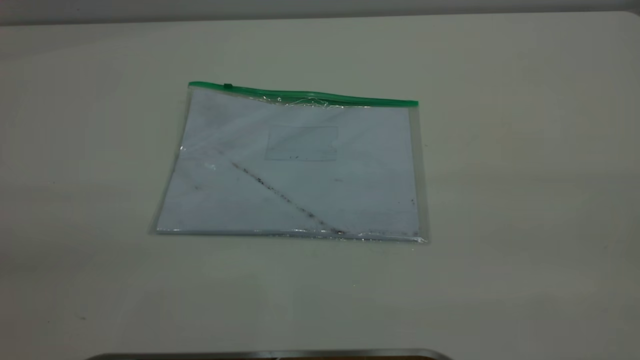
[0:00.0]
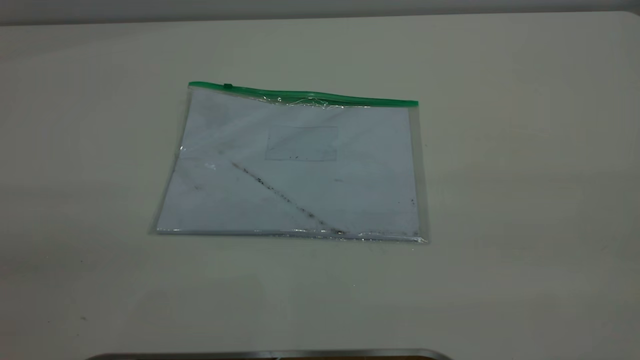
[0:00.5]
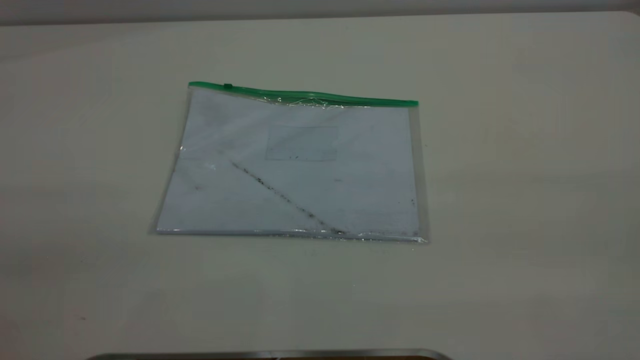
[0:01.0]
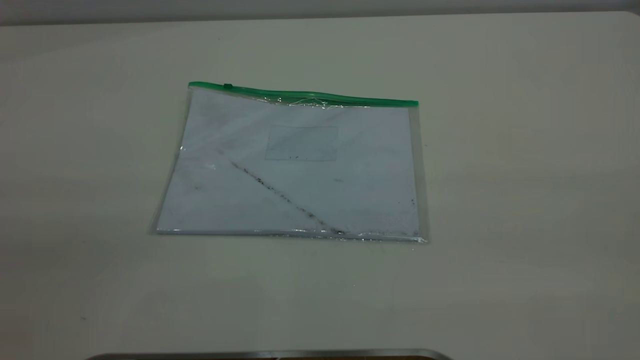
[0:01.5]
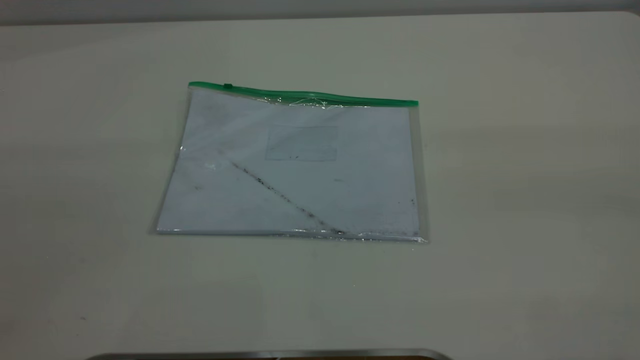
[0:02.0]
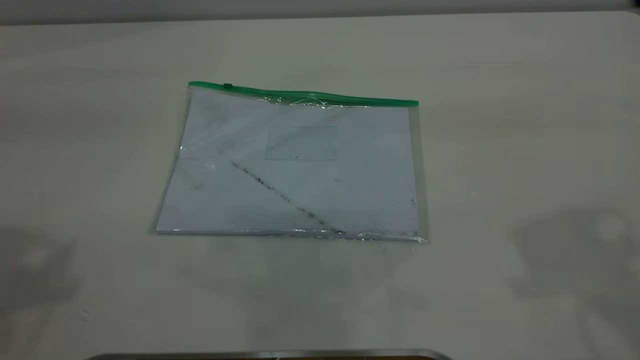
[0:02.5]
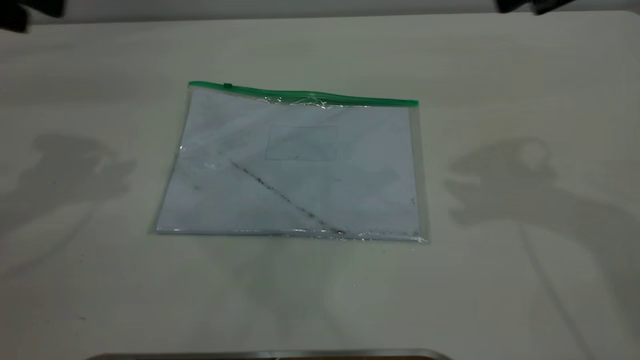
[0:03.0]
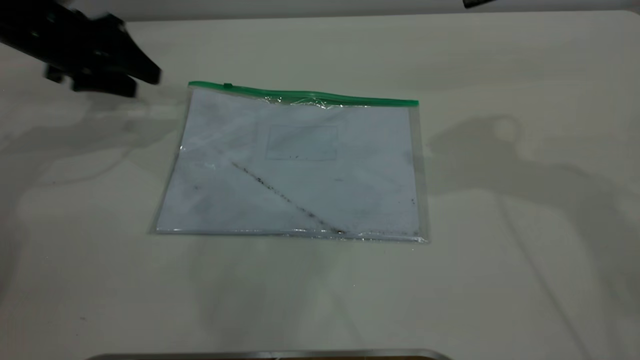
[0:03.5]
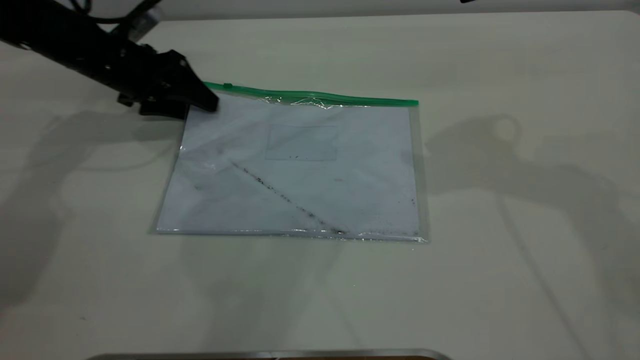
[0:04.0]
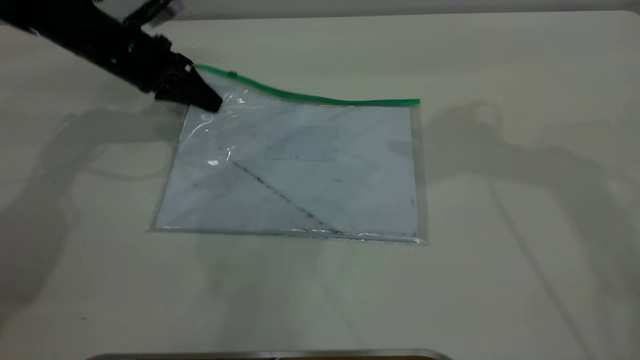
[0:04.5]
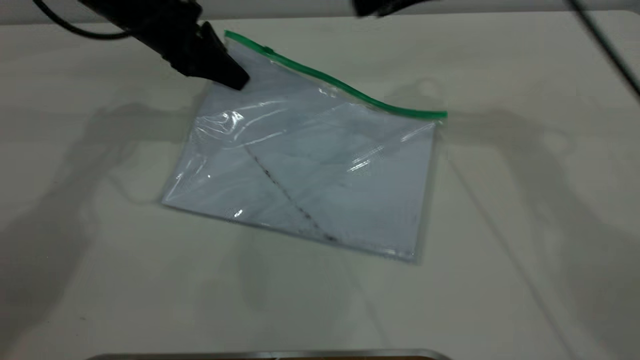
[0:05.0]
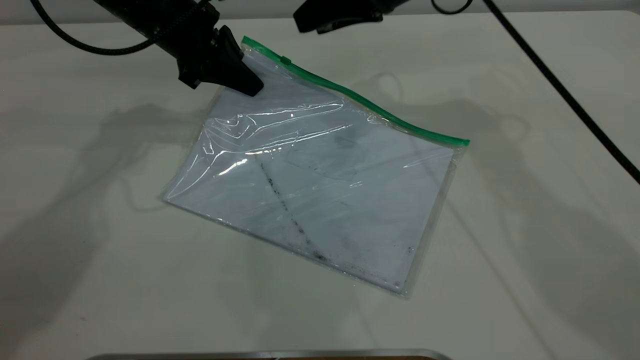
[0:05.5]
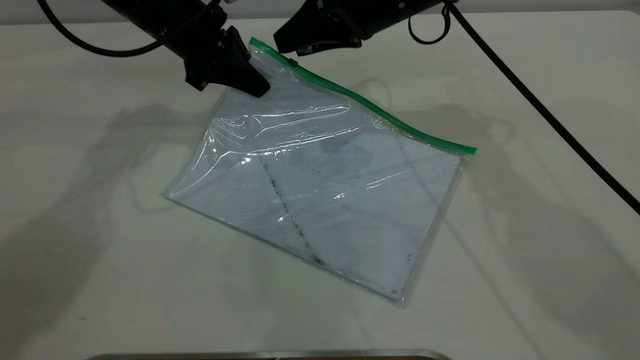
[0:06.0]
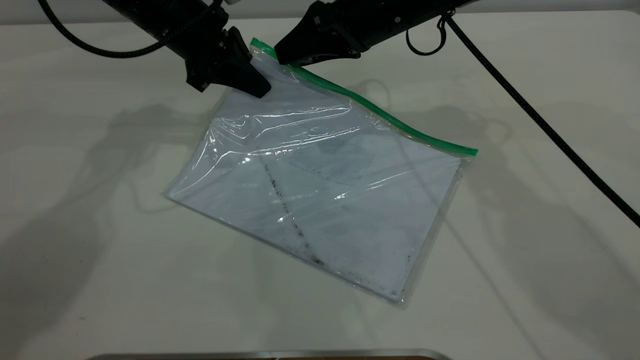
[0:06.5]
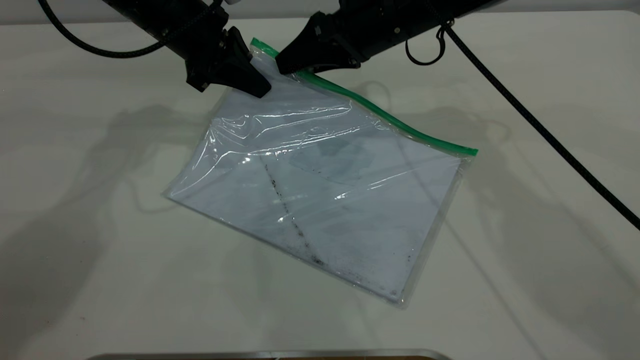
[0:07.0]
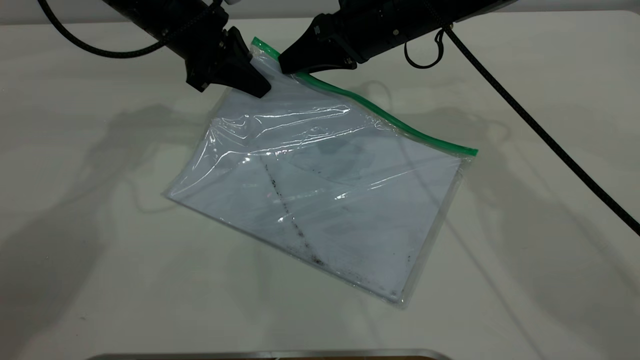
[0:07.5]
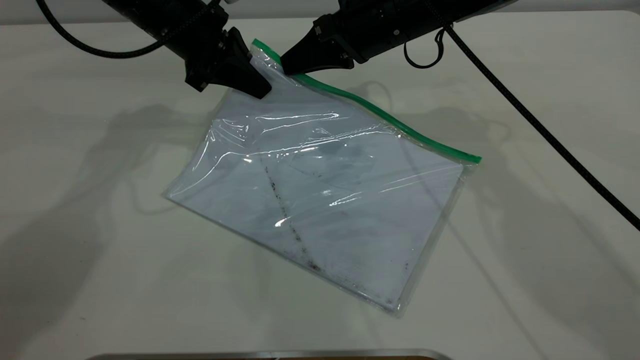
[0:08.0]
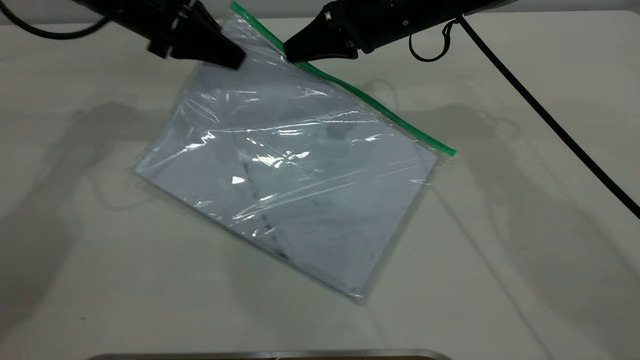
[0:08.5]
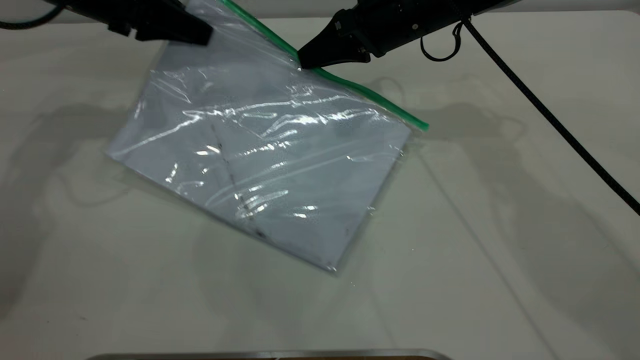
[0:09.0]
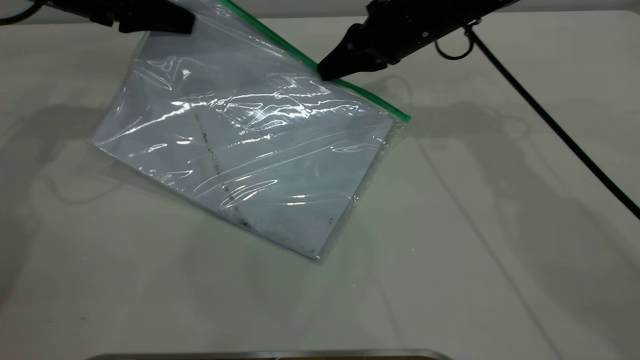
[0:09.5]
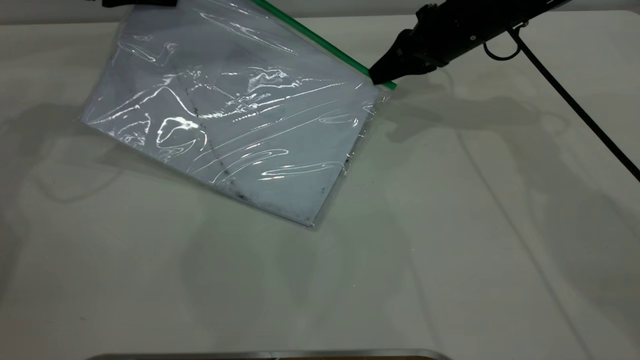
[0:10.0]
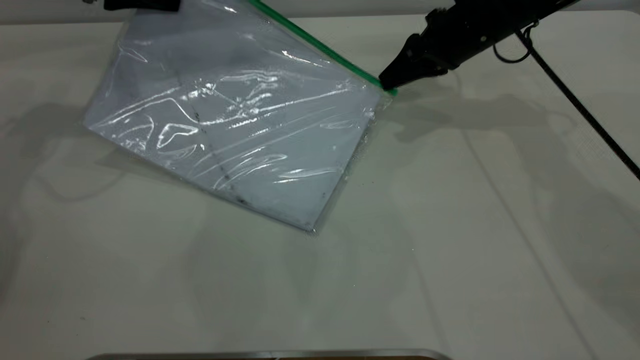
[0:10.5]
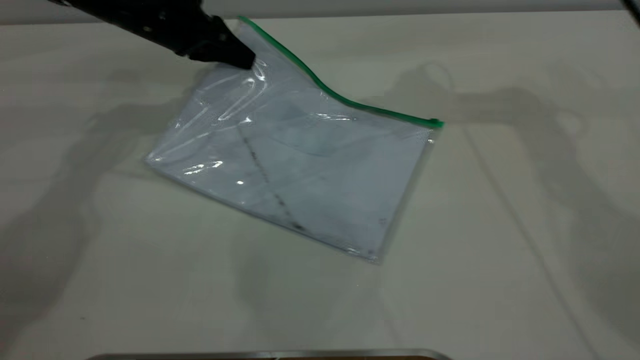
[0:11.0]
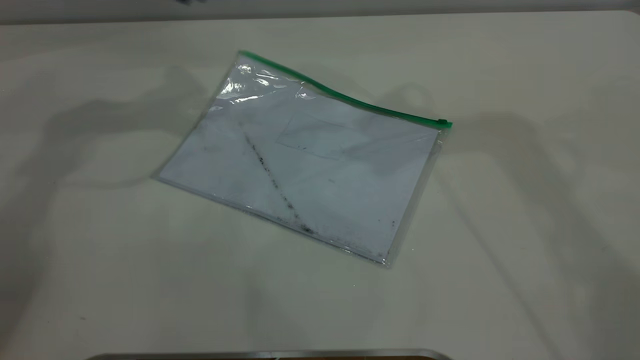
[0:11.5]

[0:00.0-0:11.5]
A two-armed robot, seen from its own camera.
Step, 0:00.0 to 0:04.5: Pick up the transparent plastic bag with the left gripper.
Step, 0:05.0 to 0:10.5: Pulling up the zipper on the transparent plastic bag with the right gripper to close it.
0:02.0 to 0:04.0: The left gripper heads forward and downward, covering about 50 cm.
0:04.0 to 0:06.0: The right gripper moves to the left, downward and forward, roughly 20 cm; the left gripper heads to the right and upward, covering about 10 cm, and closes up.
0:06.0 to 0:07.5: The right gripper closes up.
0:07.5 to 0:09.5: The left gripper heads to the left, covering some 10 cm. The right gripper closes.
0:09.5 to 0:11.5: The right gripper shifts roughly 30 cm upward, and opens up. Meanwhile the left gripper travels upward by roughly 10 cm, and opens up.
